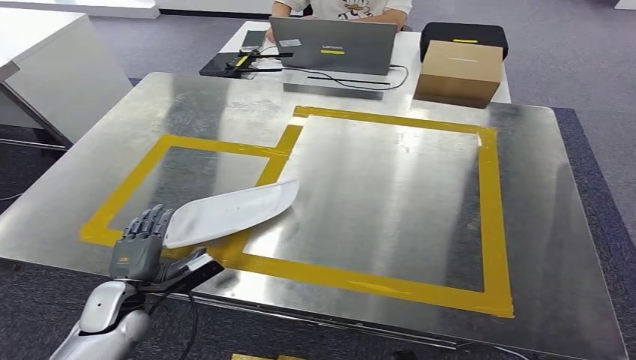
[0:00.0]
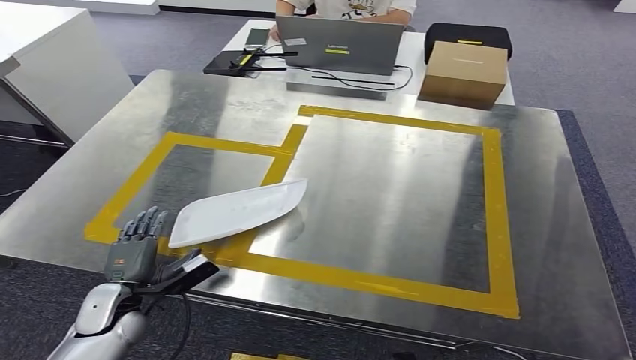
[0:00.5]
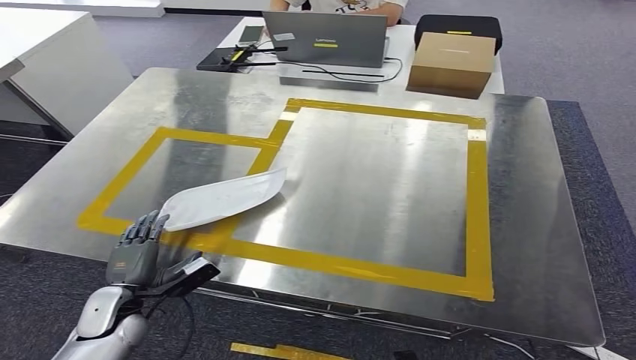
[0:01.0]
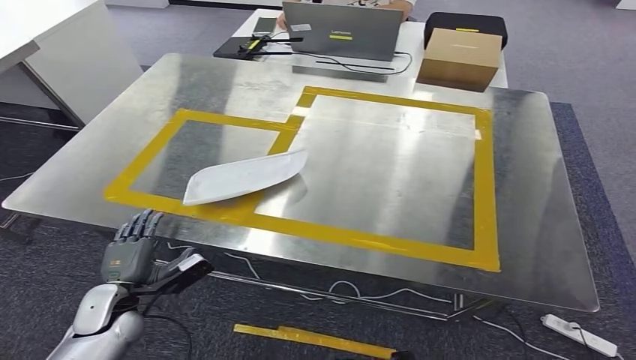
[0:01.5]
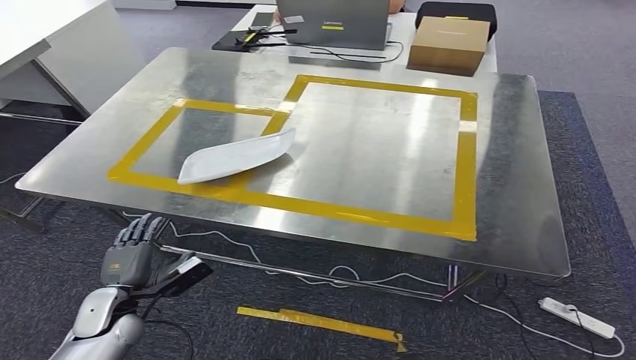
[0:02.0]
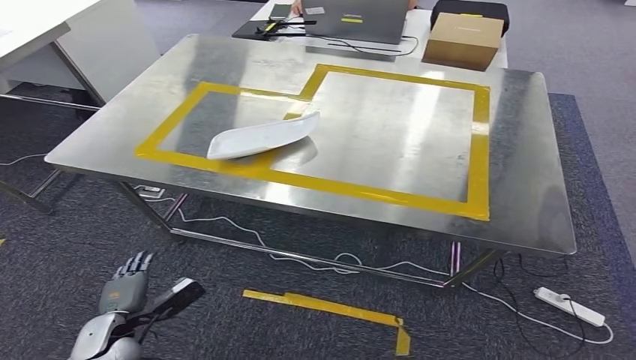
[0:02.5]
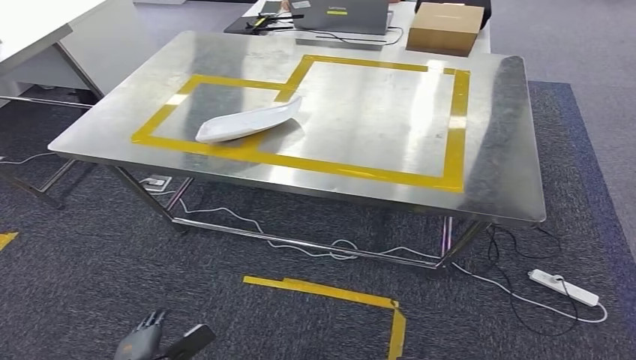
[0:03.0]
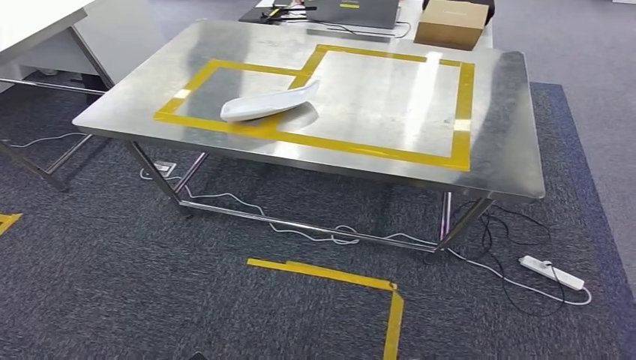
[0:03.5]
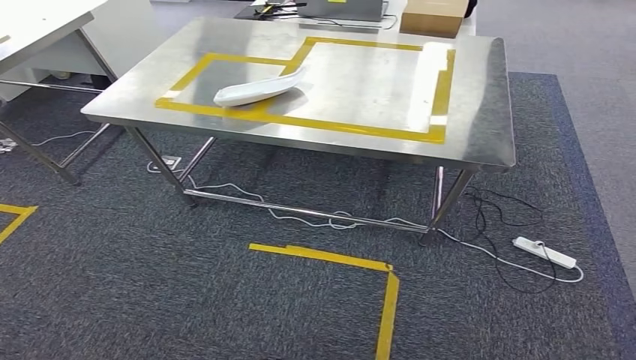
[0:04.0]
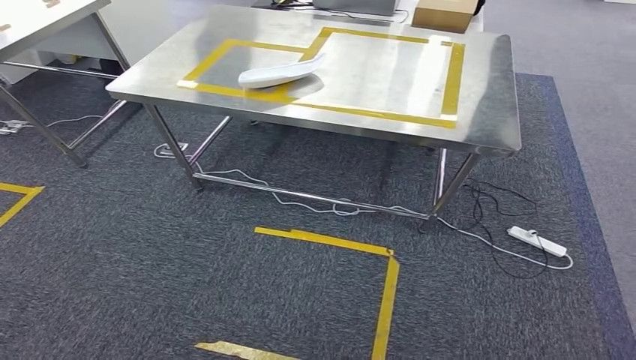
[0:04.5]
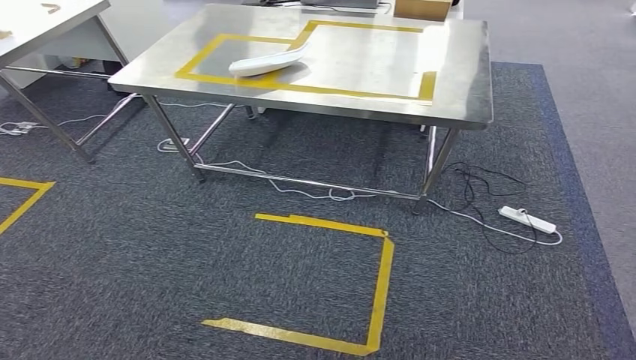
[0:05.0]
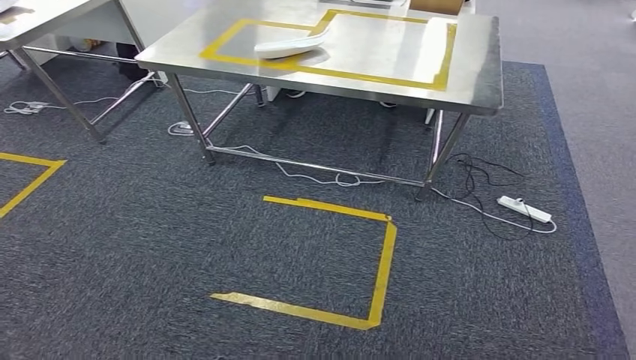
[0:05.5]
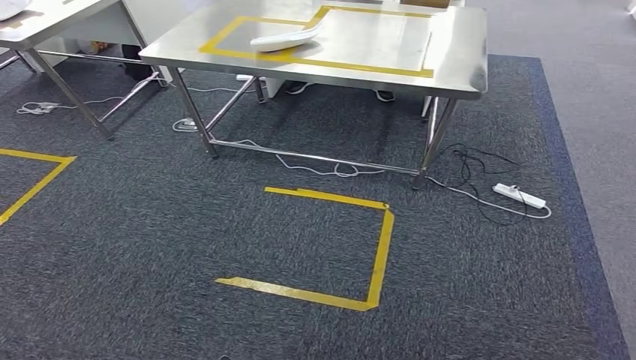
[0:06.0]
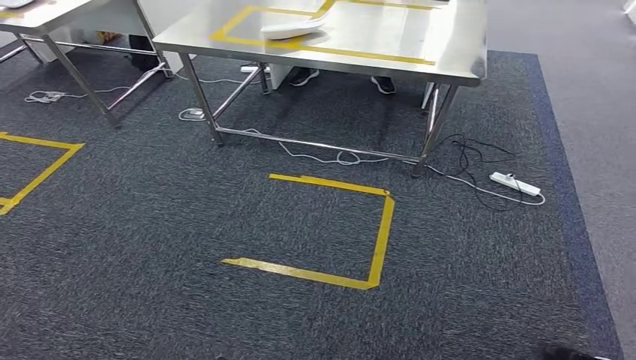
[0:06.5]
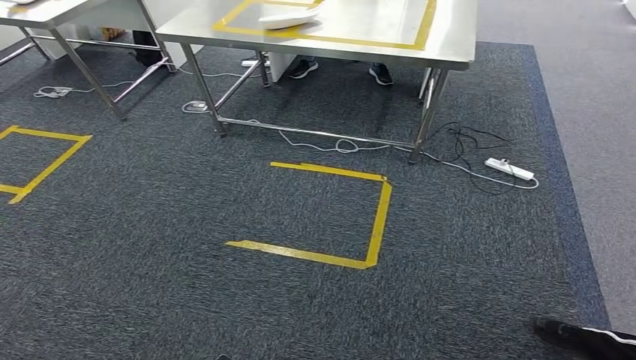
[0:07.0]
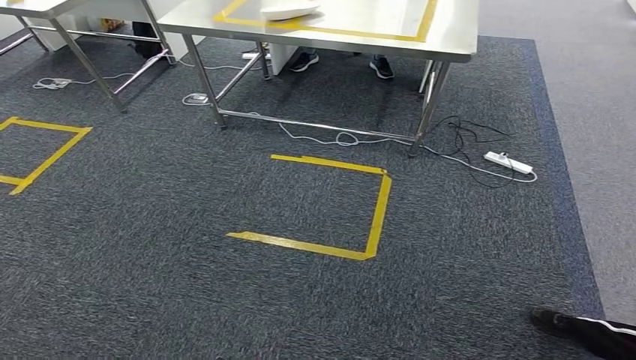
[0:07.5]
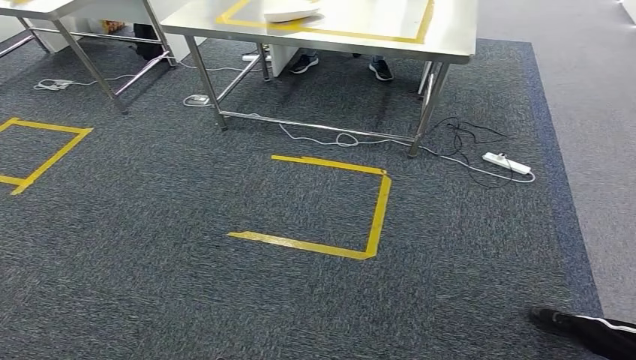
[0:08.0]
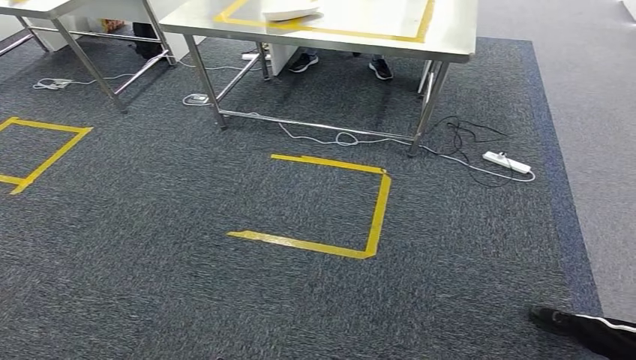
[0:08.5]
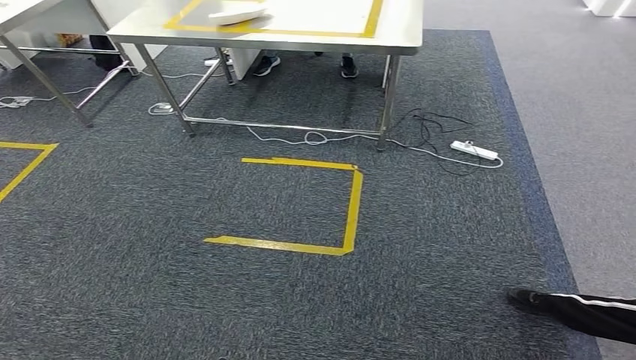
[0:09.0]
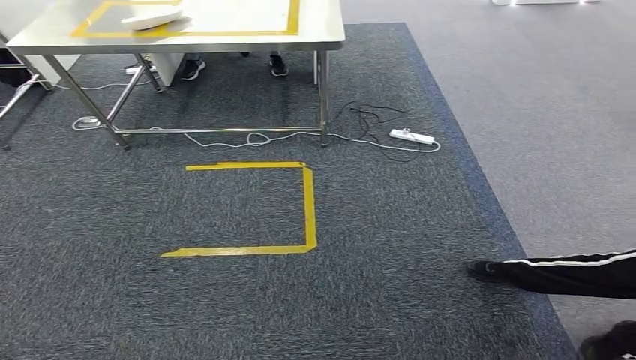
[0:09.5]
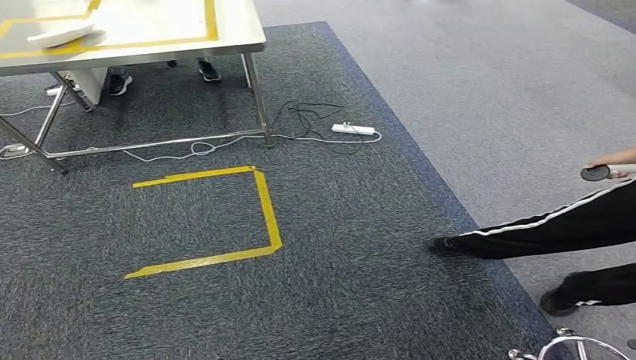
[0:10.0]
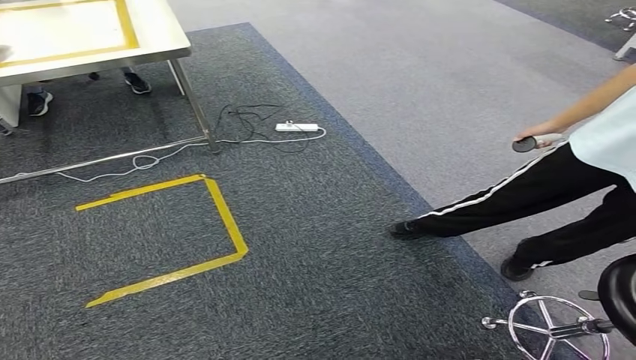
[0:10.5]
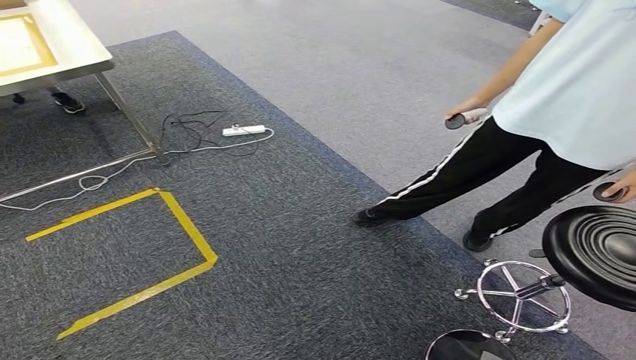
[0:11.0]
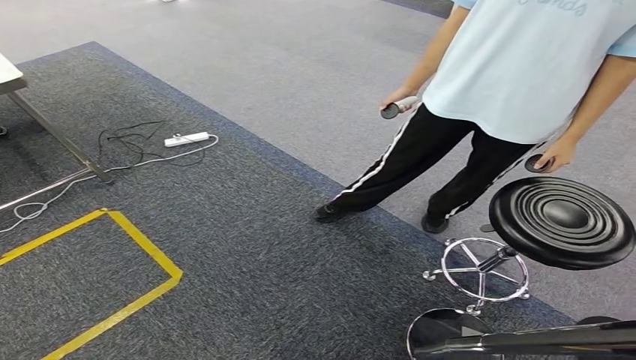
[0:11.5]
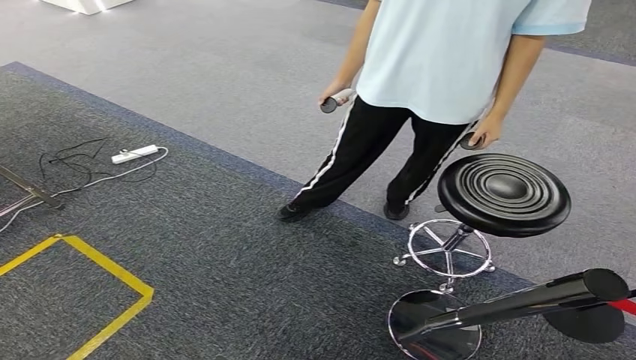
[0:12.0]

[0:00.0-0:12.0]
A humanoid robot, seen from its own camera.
Step, 0:00.0 to 0:06.5: Insert the small component into the corresponding slot on the workbench.

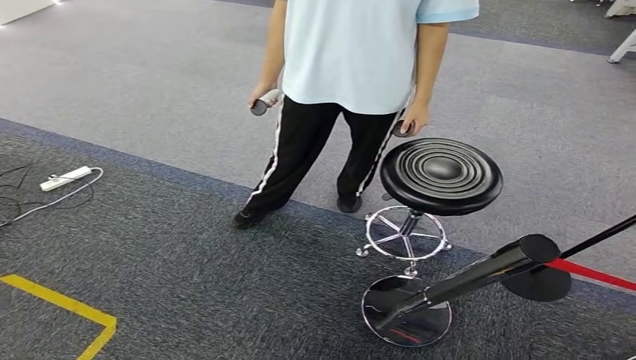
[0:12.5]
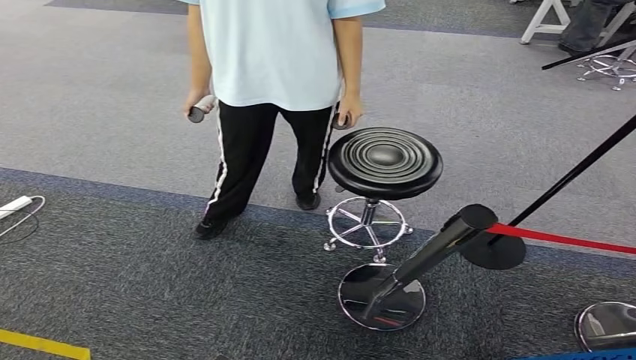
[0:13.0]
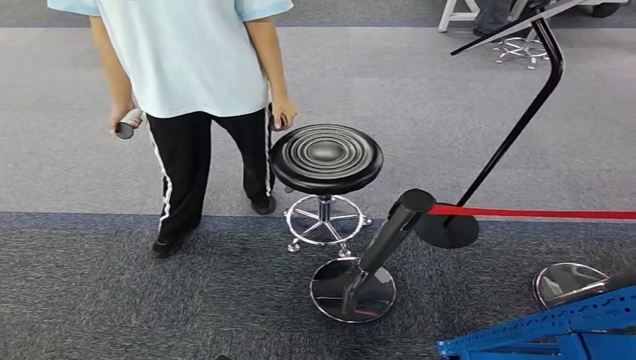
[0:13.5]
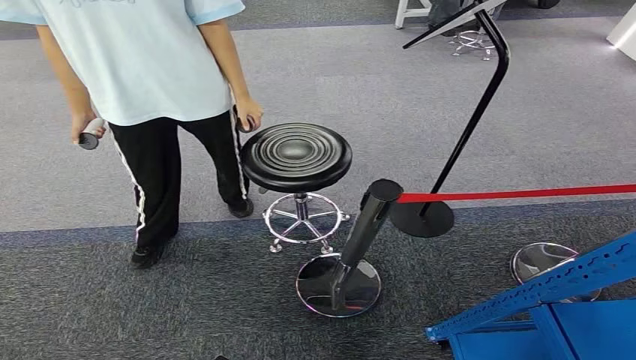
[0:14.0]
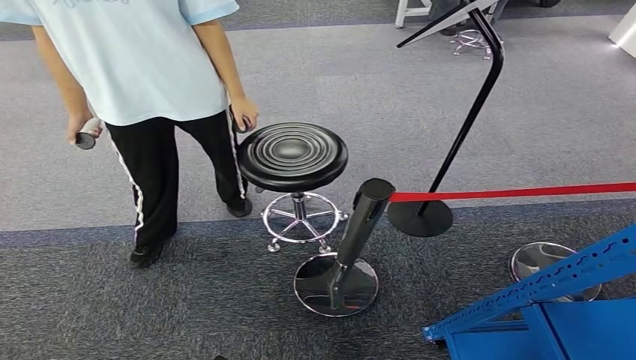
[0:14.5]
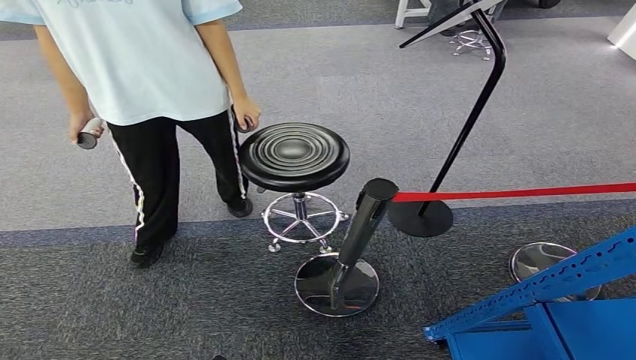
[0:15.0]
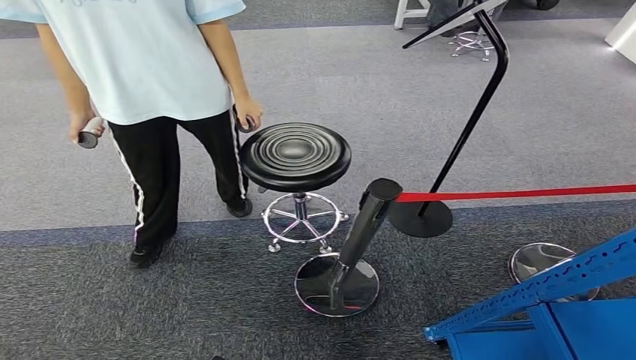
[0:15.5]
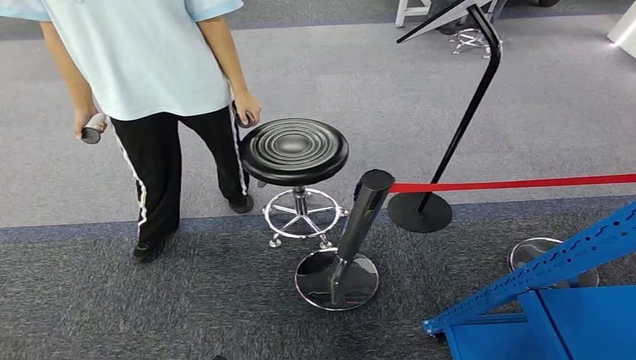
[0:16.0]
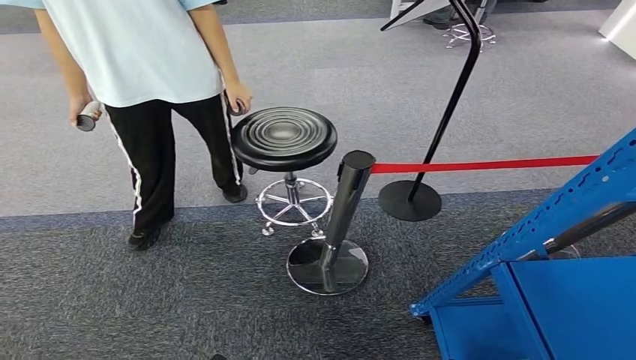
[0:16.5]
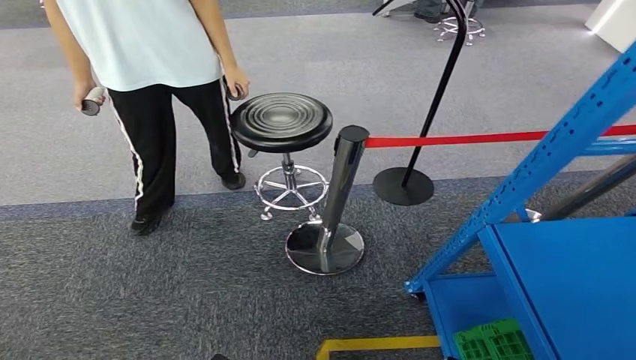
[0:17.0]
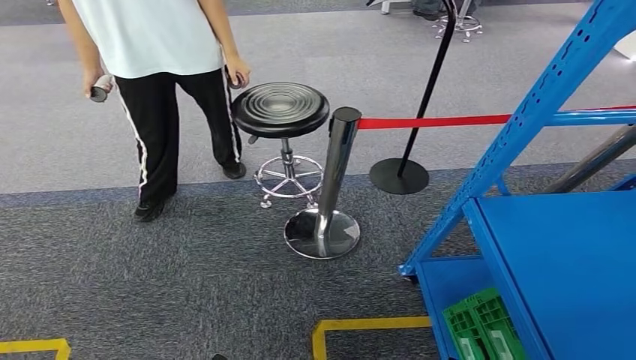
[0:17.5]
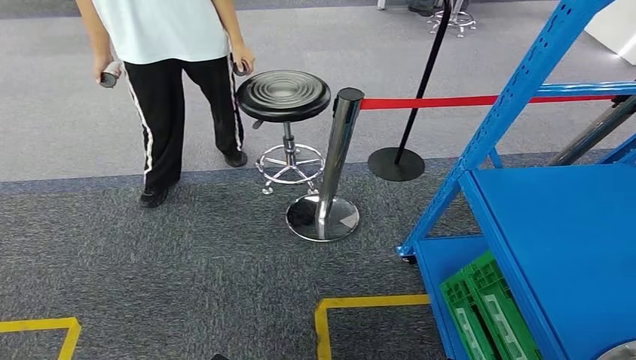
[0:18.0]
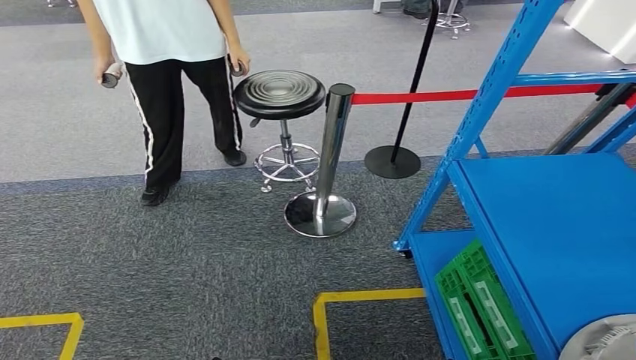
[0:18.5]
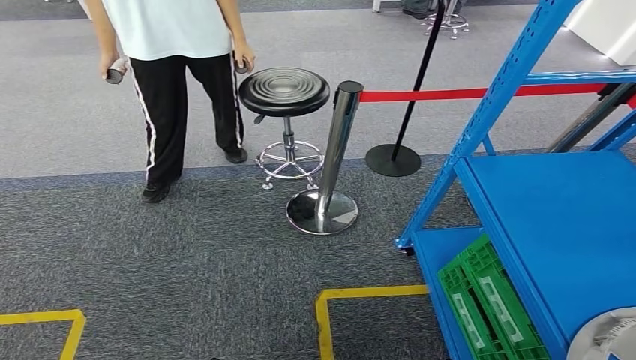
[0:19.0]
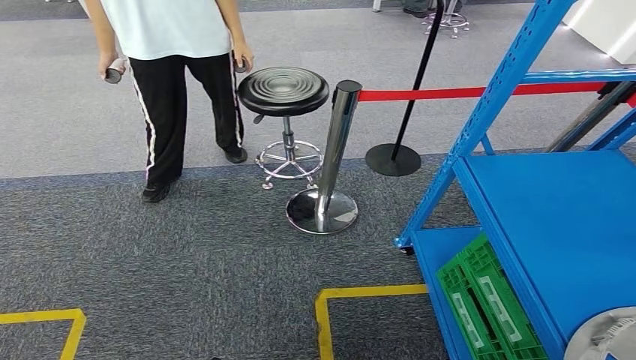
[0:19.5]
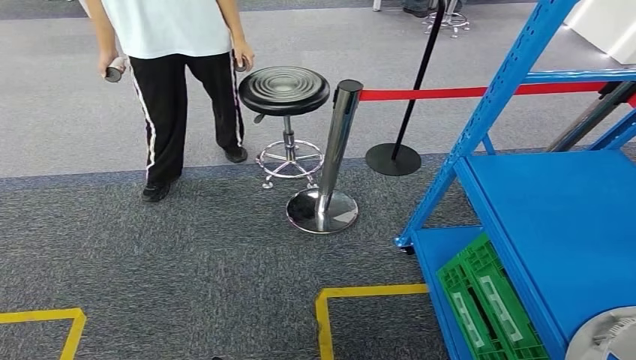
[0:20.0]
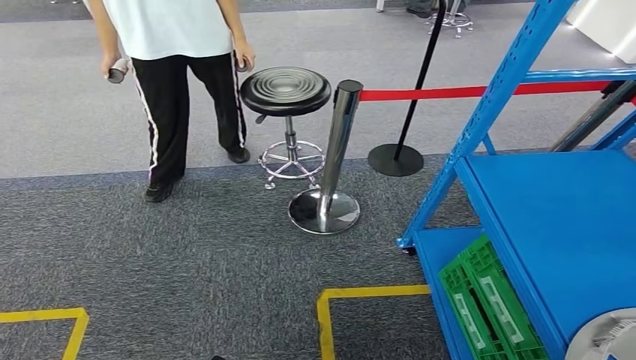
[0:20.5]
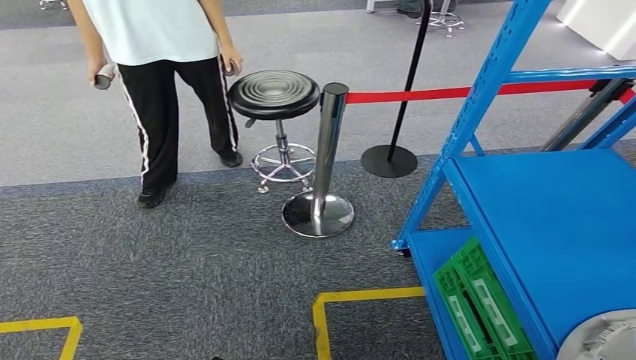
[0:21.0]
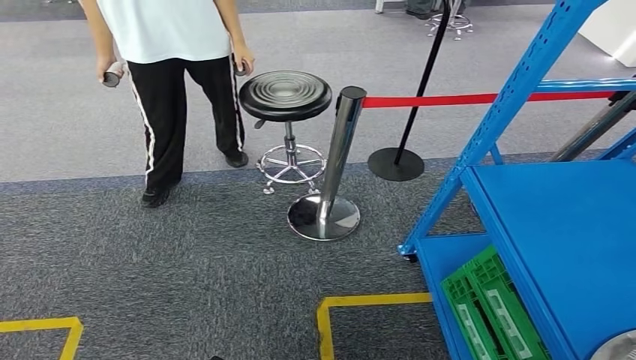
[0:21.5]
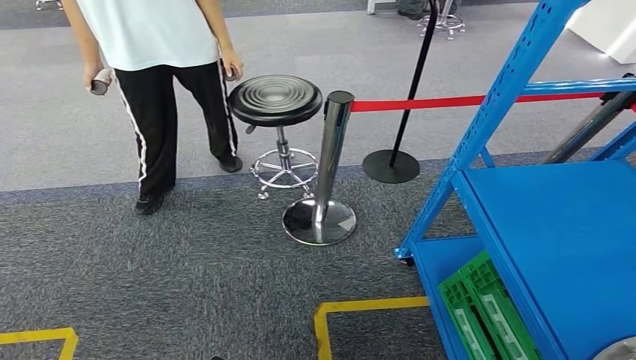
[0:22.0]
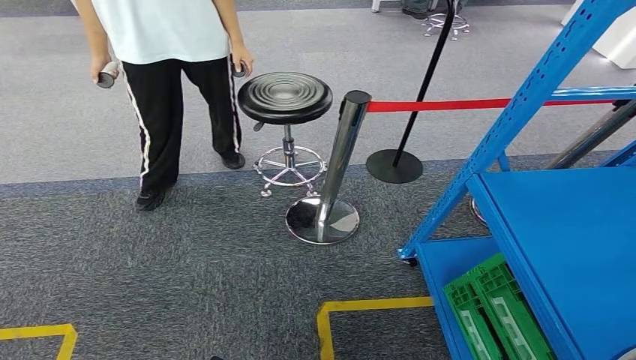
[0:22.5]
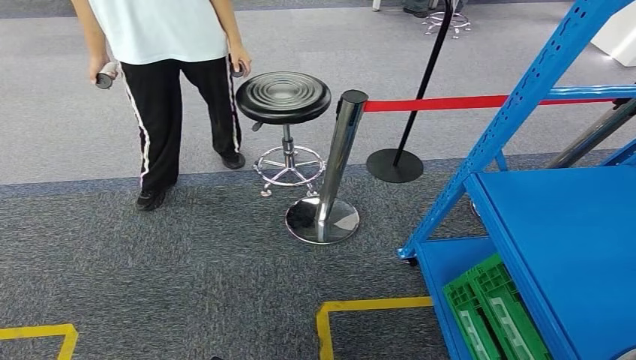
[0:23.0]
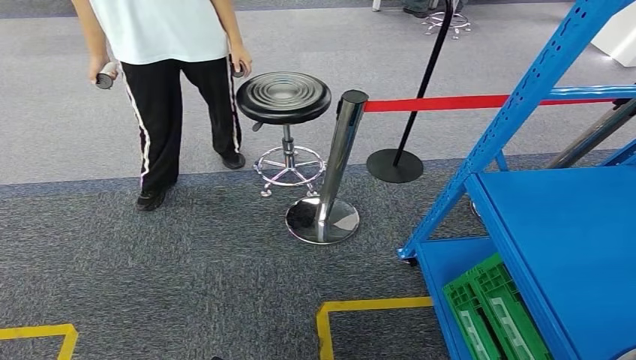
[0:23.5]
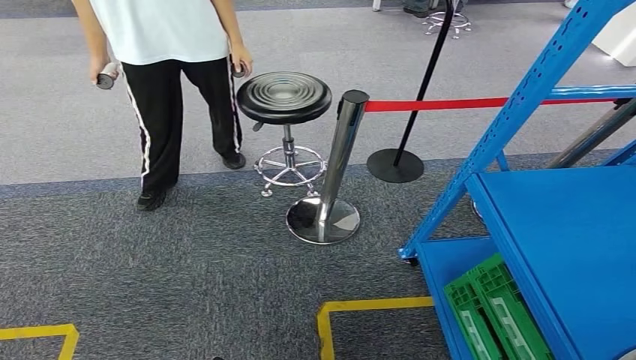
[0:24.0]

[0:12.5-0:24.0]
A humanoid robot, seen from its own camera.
0:18.5 to 0:20.0: The hands stay close to where they were, moving slightly.
